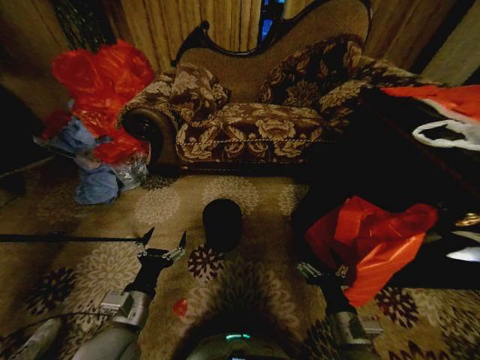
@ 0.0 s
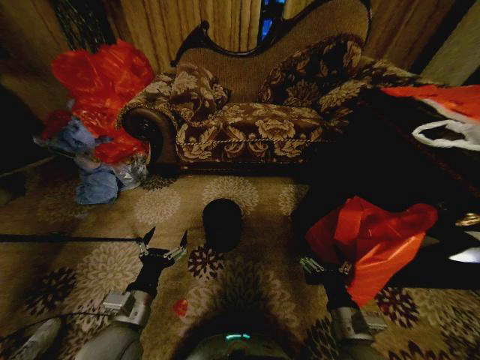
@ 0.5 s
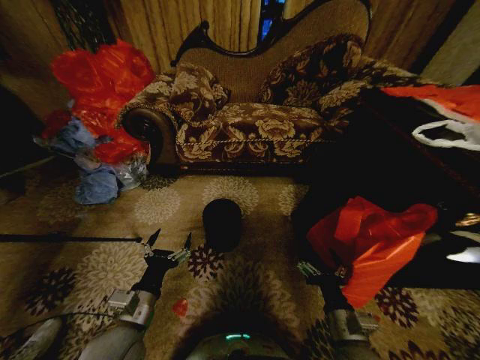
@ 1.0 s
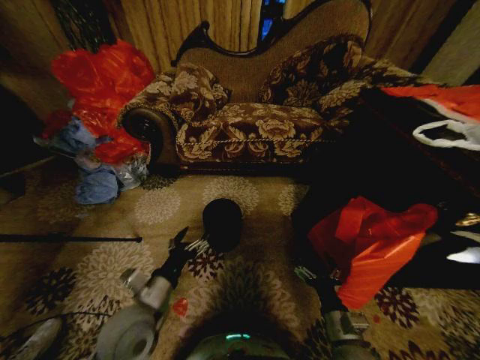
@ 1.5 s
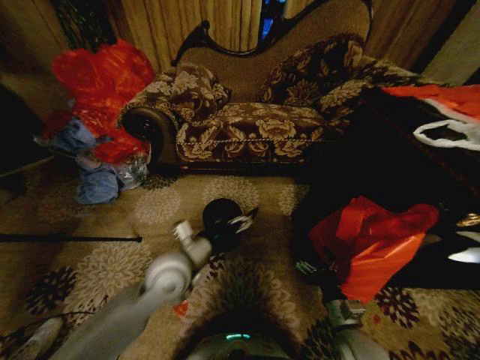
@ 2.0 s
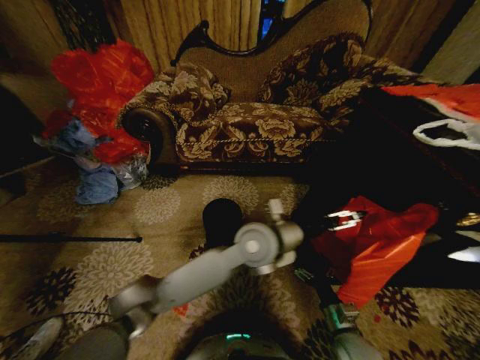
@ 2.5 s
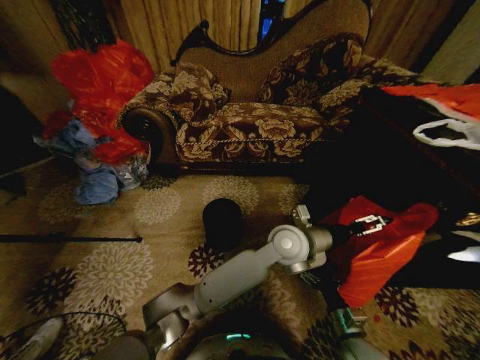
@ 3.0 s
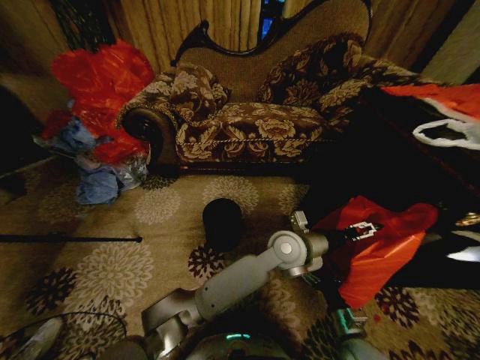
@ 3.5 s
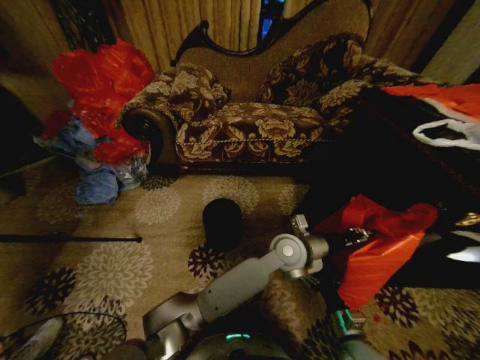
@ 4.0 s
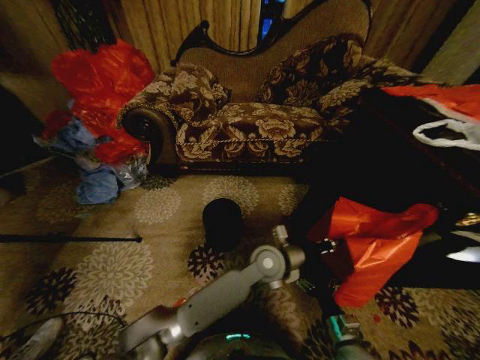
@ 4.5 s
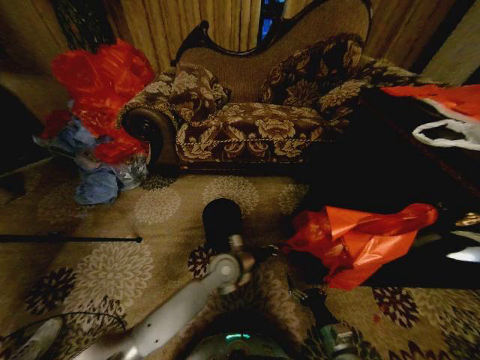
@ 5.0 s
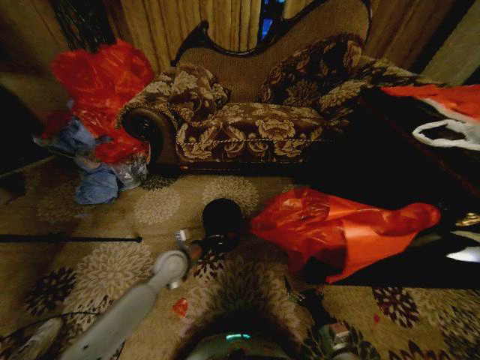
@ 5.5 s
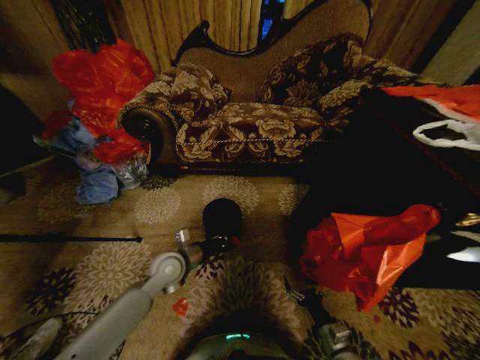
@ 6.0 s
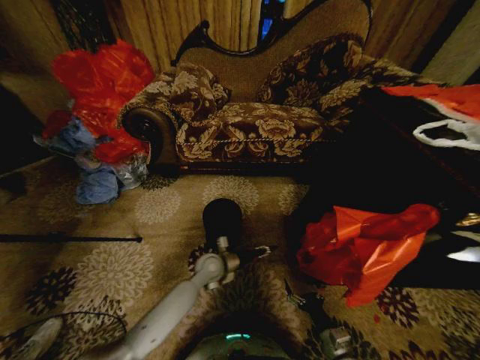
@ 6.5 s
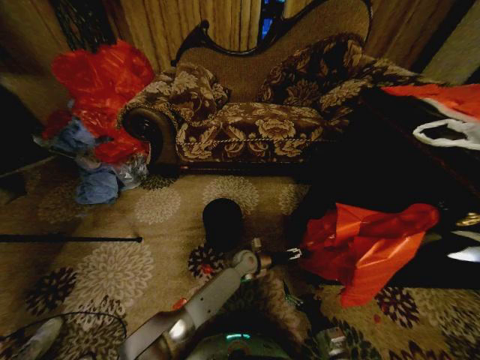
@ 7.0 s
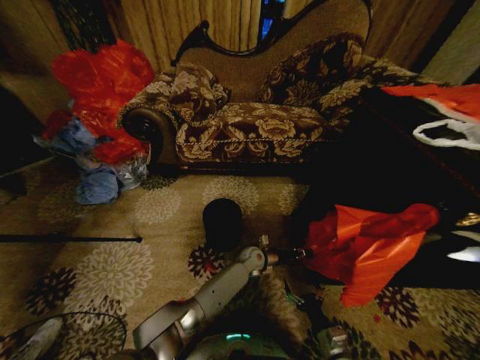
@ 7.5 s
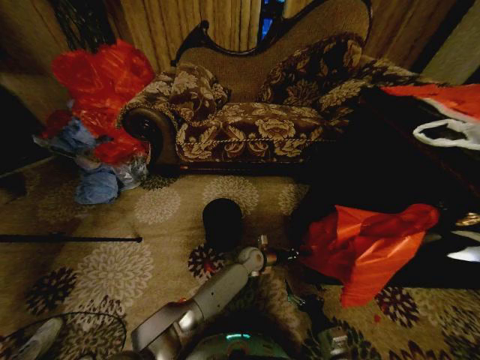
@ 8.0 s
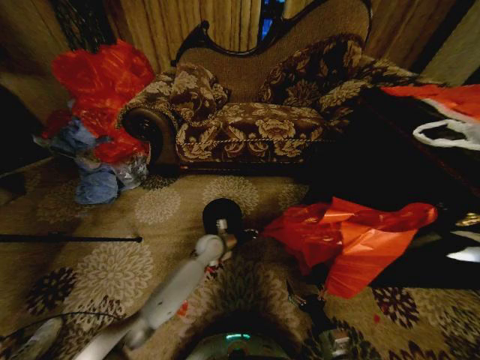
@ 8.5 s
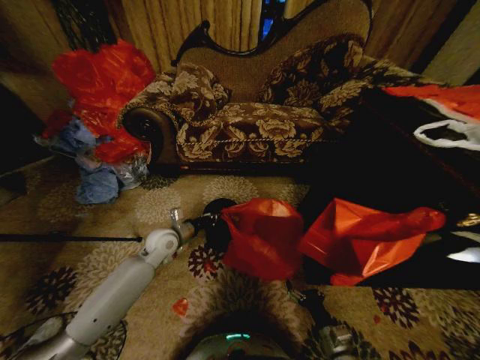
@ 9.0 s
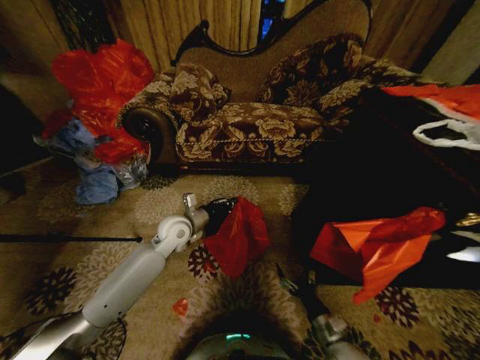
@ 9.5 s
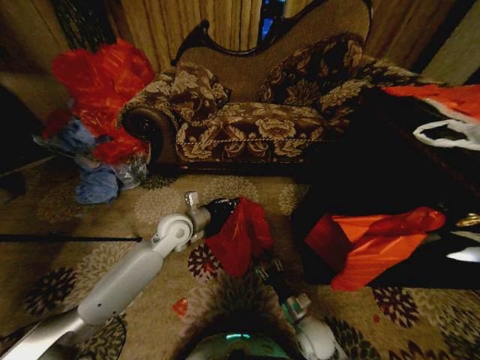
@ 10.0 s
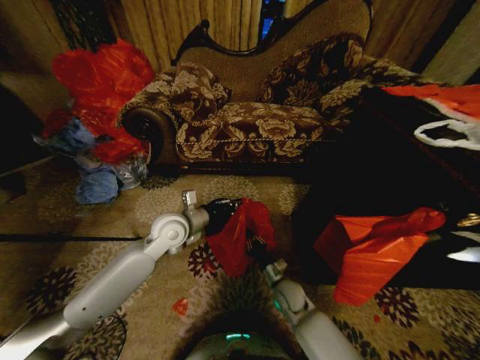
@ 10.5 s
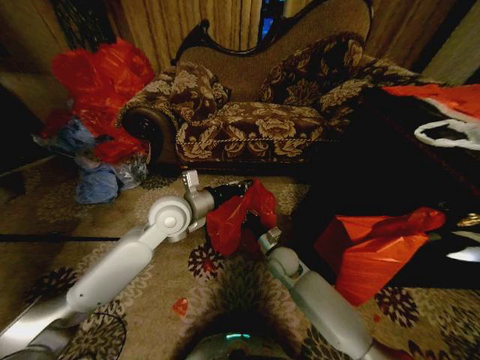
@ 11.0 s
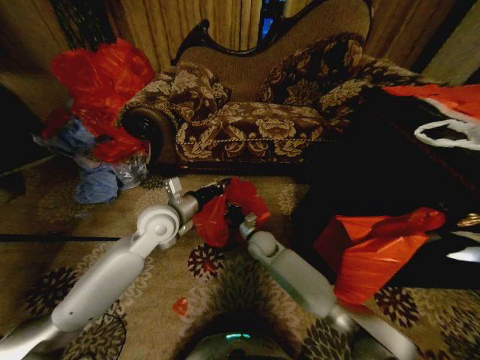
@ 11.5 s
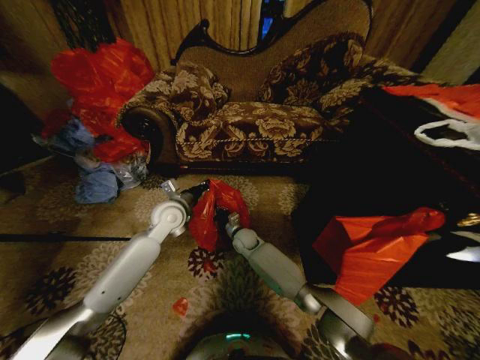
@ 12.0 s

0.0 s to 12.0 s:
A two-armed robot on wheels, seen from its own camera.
Task of the whole recording: Place a garbage bag over the trash bin.
2.0 to 4.0 s: The left gripper shifts approximately 25 cm to the right, and closes its fingers.
4.0 to 6.0 s: The right gripper ends up approximately 5 cm from where it was. Meanwhile the left gripper goes roughly 30 cm to the left.
6.0 to 8.0 s: The left gripper is displaced to the right, downward and forward by approximately 30 cm, and opens and closes again.
8.0 to 10.0 s: The right gripper is displaced forward and to the left by approximately 10 cm, and closes its fingers. Meanwhile the left gripper is displaced upward and to the left by approximately 30 cm.
10.0 to 12.0 s: The left gripper moves about 10 cm upward and comes back, while the right gripper travels forward and to the left by about 35 cm, and closes its fingers.

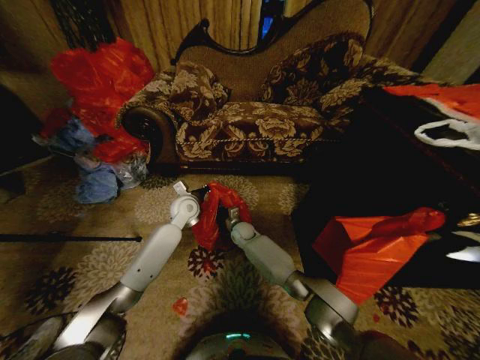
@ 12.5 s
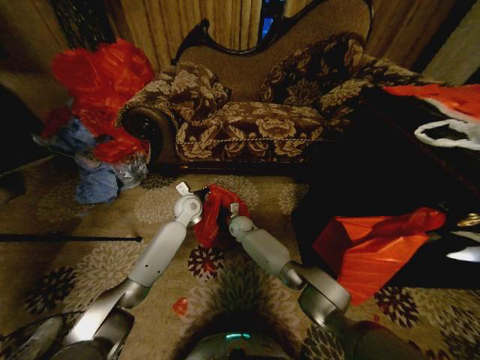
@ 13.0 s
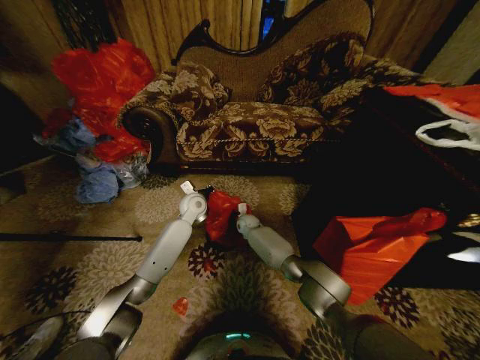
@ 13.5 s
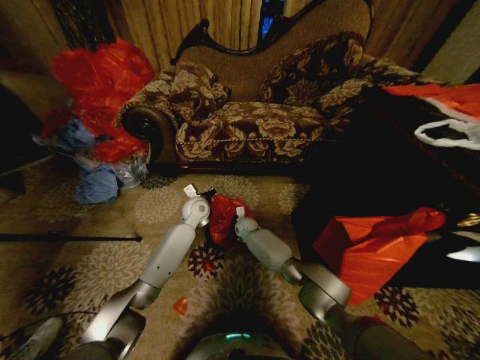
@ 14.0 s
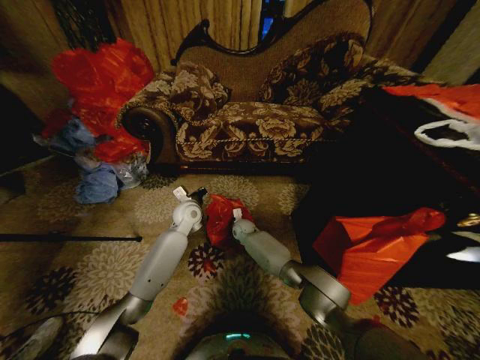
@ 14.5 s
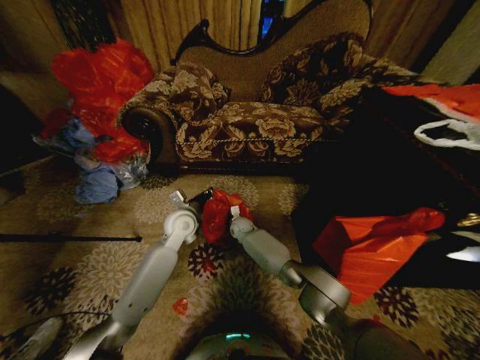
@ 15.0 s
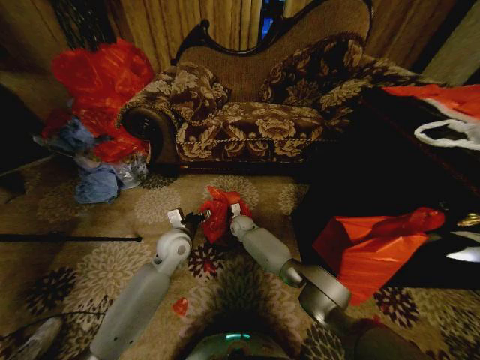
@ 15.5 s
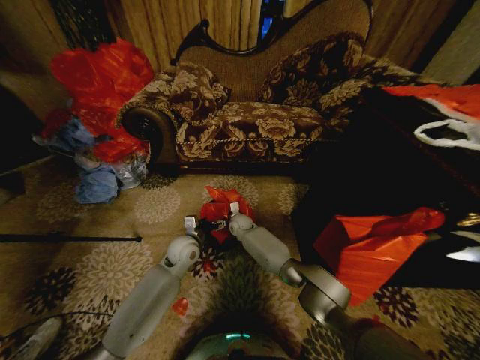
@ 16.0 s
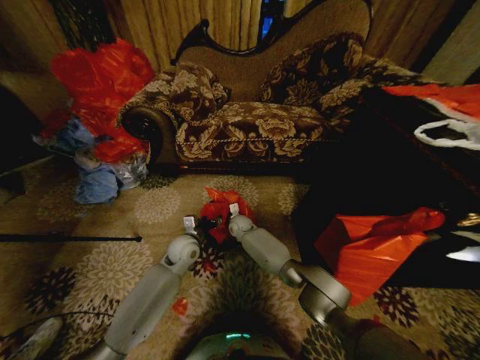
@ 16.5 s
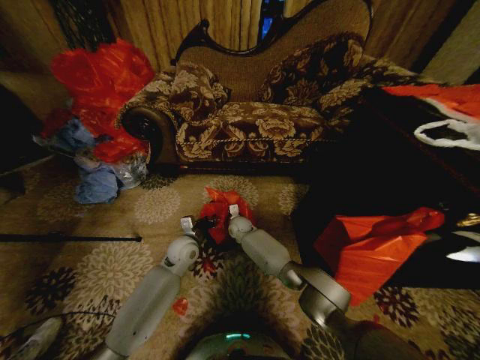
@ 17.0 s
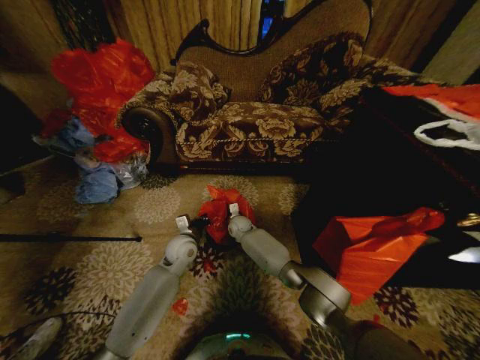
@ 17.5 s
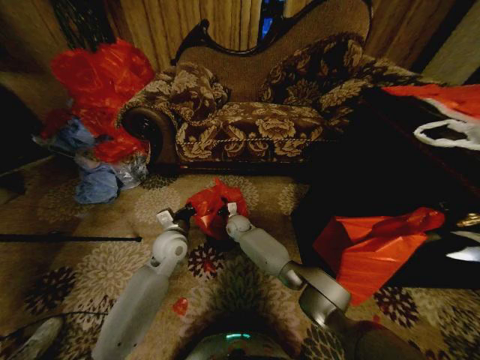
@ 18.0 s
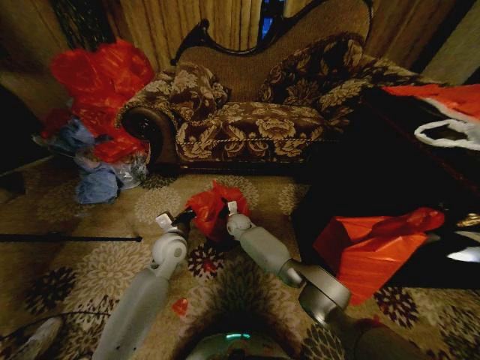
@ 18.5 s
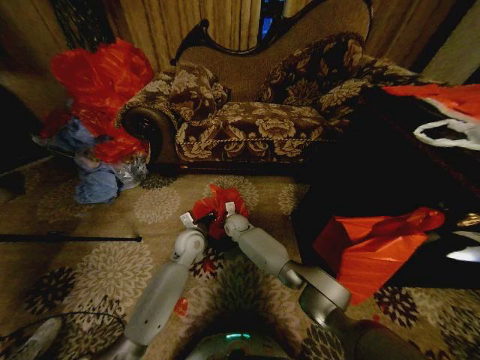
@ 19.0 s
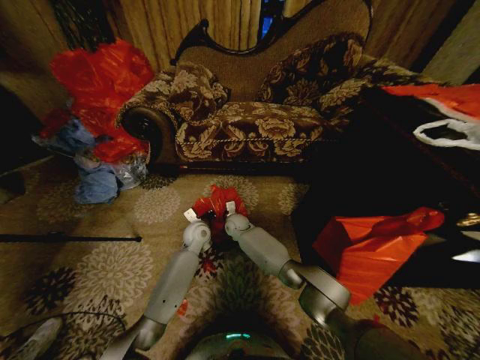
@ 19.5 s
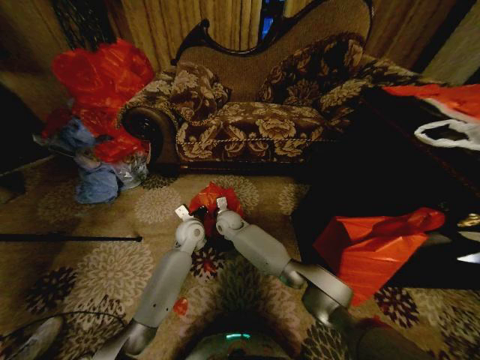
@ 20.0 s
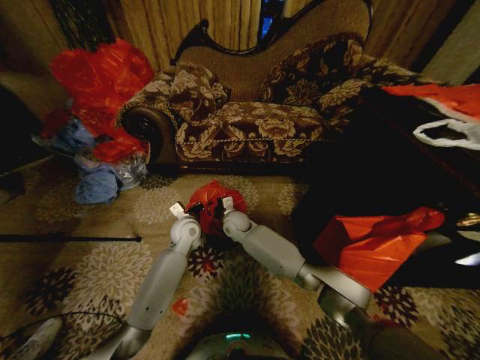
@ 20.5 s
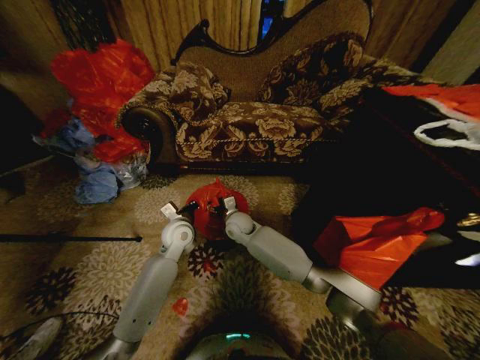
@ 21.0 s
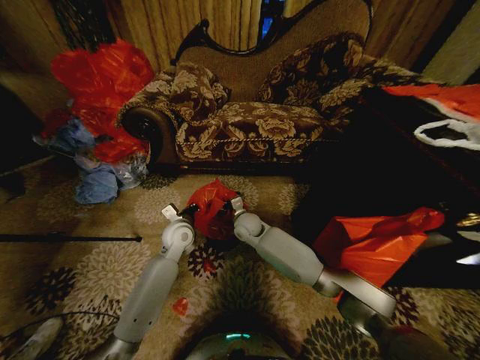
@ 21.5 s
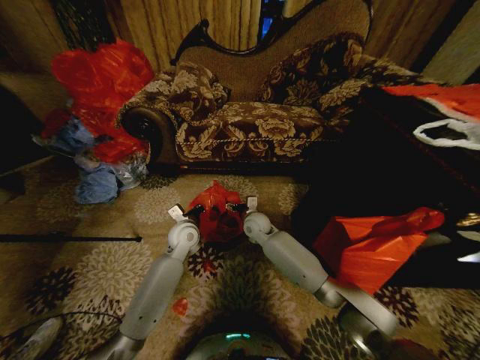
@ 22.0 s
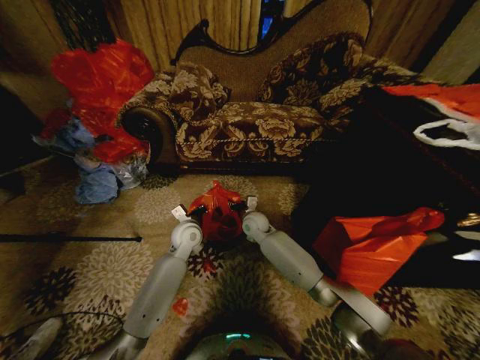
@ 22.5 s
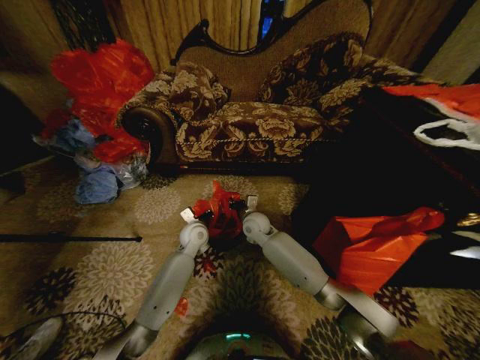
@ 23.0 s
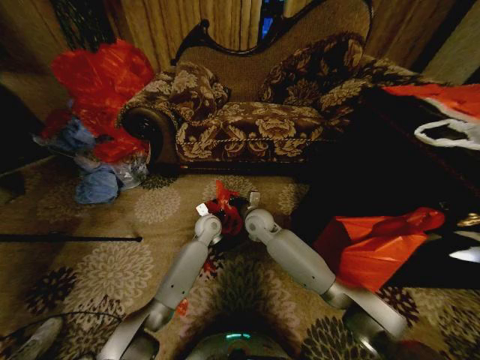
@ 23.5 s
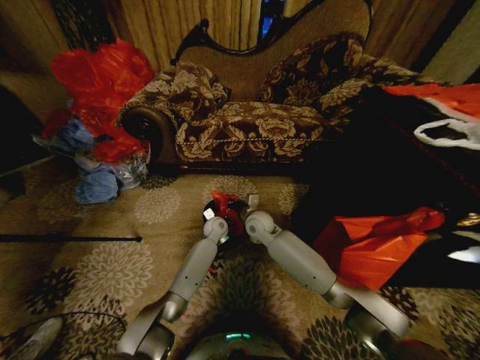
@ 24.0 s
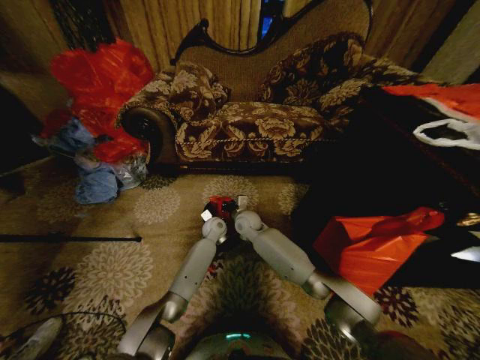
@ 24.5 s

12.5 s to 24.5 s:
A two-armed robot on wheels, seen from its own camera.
Task of the whole recording: Place a garbage bag over the trash bin.
14.5 to 16.5 s: The left gripper travels backward and downward by roughly 10 cm, and opens its fingers.
16.5 to 18.5 s: The left gripper ends up approximately 5 cm from where it was, and closes up.
18.5 to 20.5 s: The left gripper goes about 5 cm forward; the right gripper heads upward, covering some 5 cm, and opens.
20.5 to 22.5 s: The right gripper shifts some 5 cm to the right.
22.5 to 24.5 s: The right gripper closes. The left gripper travels forward, downward and to the right by about 15 cm.

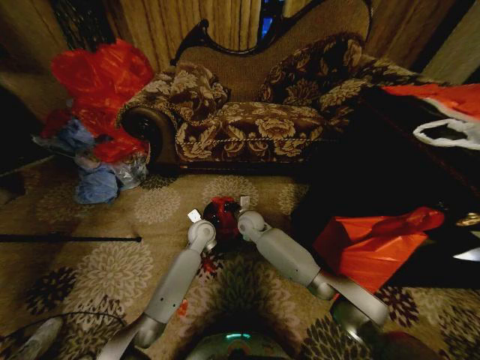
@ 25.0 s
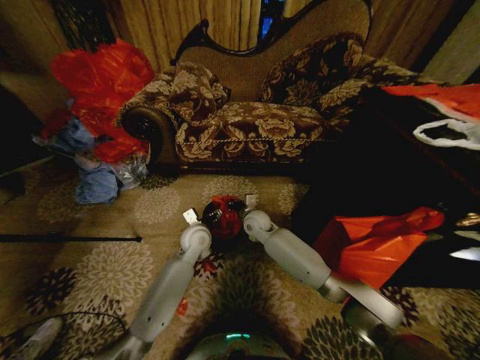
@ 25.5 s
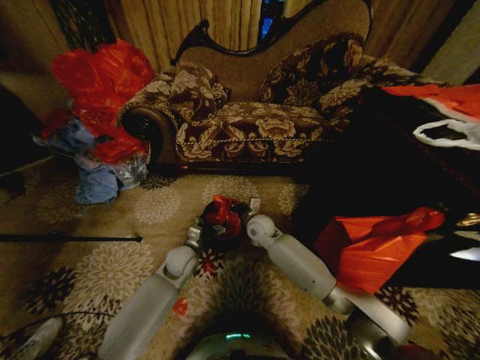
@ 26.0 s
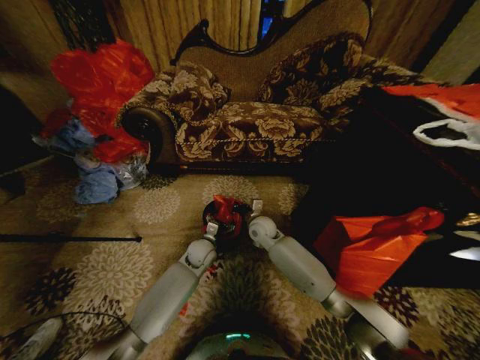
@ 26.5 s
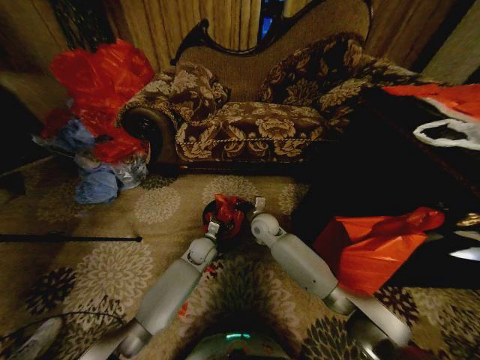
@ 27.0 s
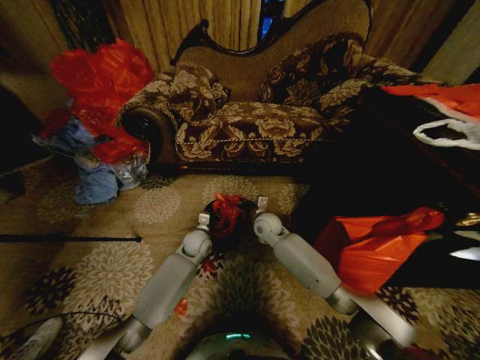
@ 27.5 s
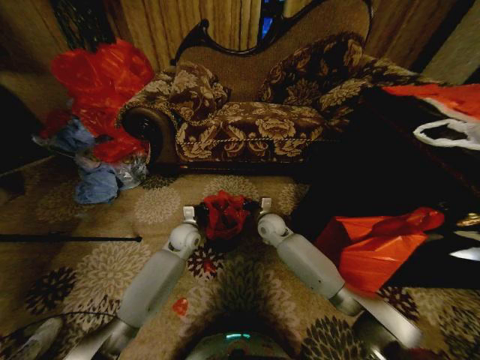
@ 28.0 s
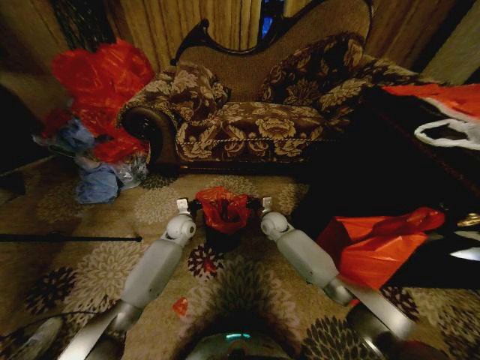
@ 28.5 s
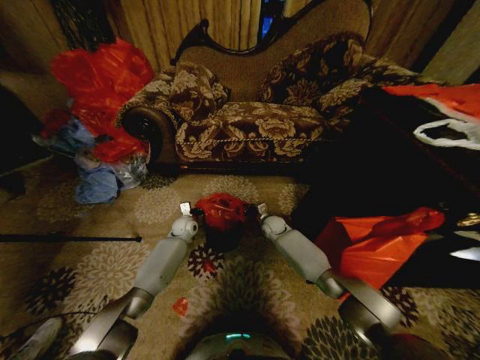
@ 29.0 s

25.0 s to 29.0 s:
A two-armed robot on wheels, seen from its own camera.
Task of the whole recording: Place a garbage bag over the trash bin.
25.0 to 27.0 s: The right gripper shifts by roughly 5 cm. The left gripper goes about 5 cm downward, and opens up.
27.0 to 29.0 s: The right gripper is displaced downward, forward and to the right by roughly 15 cm. Meanwhile the left gripper travels forward and to the left by some 15 cm, and closes its fingers.
